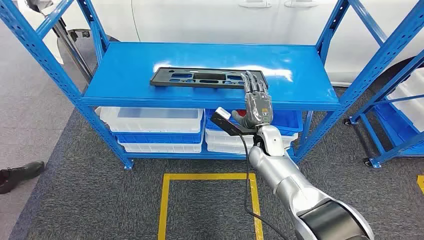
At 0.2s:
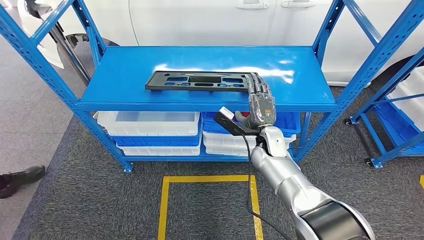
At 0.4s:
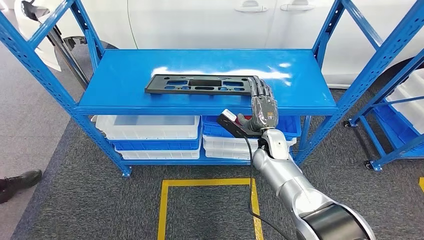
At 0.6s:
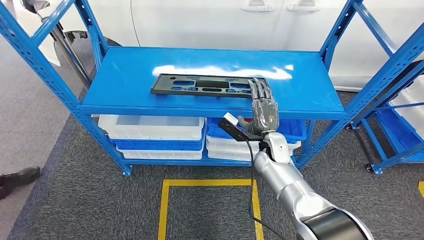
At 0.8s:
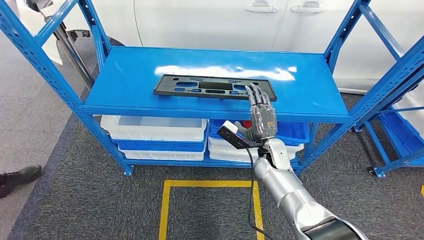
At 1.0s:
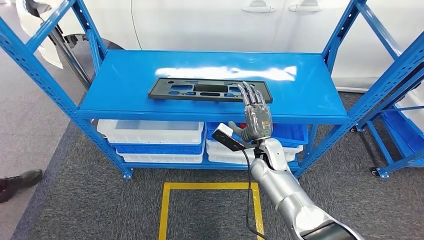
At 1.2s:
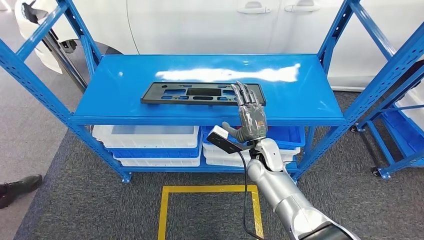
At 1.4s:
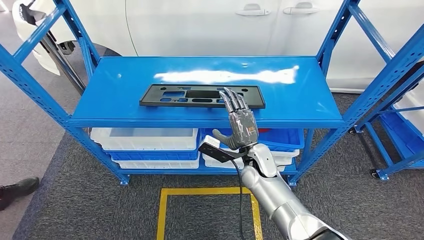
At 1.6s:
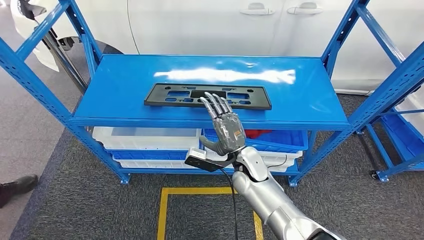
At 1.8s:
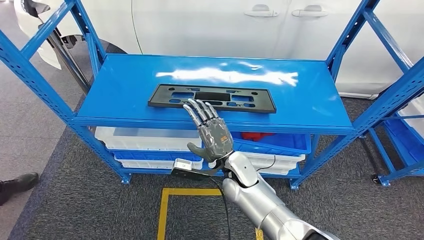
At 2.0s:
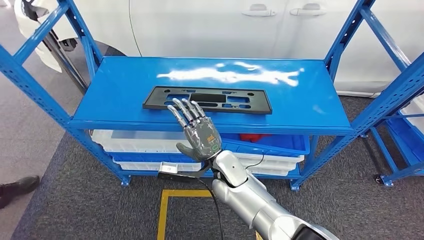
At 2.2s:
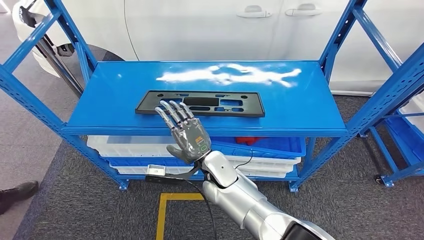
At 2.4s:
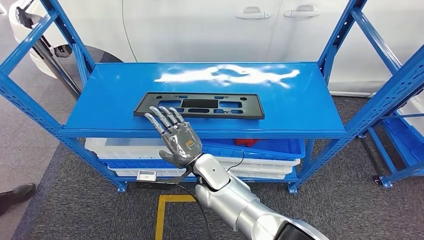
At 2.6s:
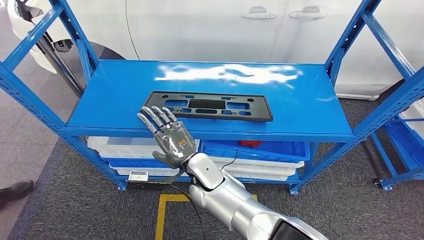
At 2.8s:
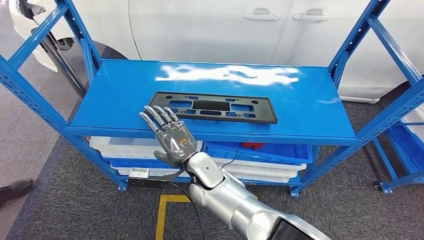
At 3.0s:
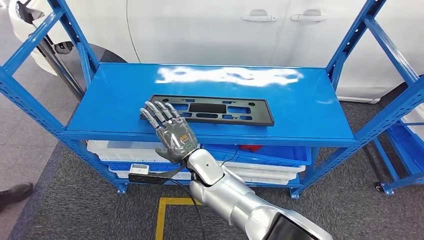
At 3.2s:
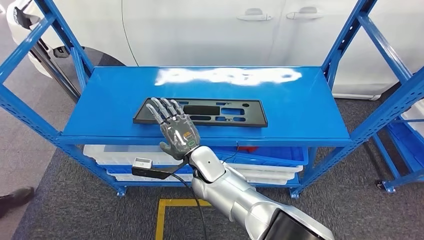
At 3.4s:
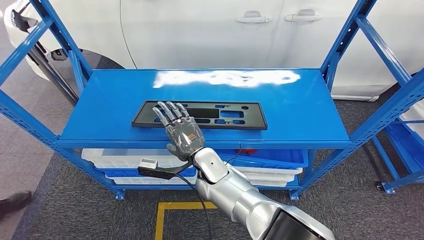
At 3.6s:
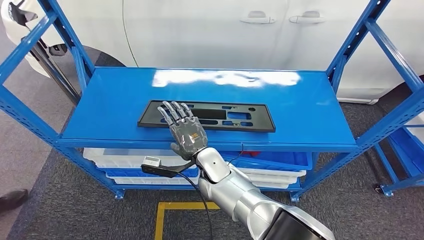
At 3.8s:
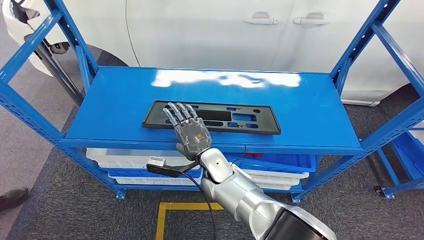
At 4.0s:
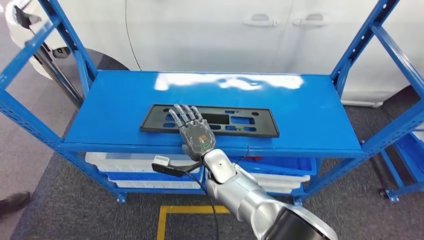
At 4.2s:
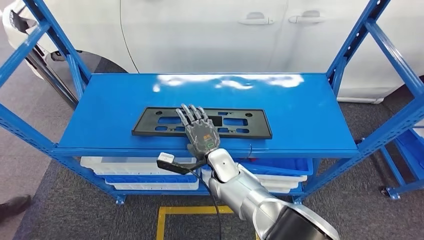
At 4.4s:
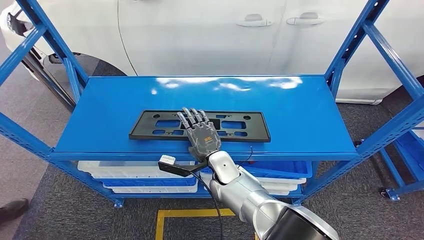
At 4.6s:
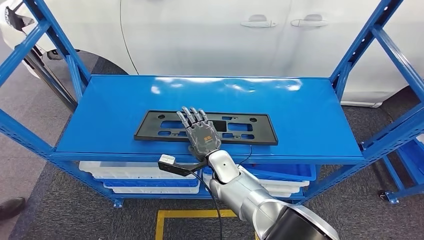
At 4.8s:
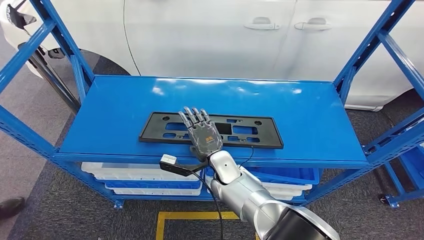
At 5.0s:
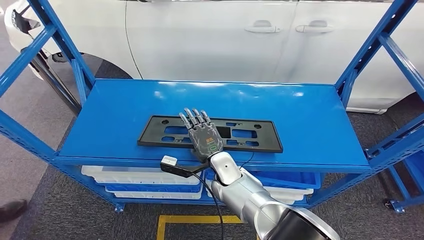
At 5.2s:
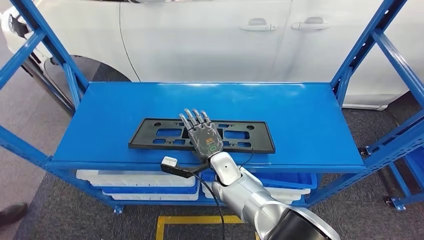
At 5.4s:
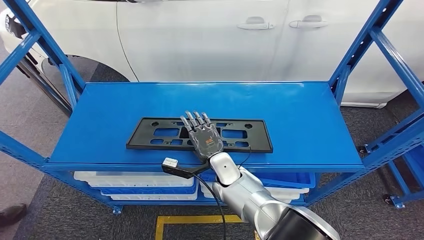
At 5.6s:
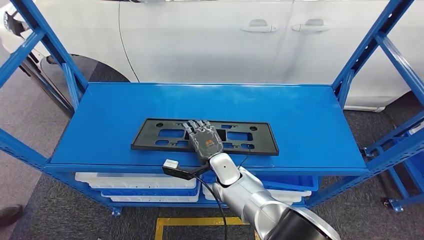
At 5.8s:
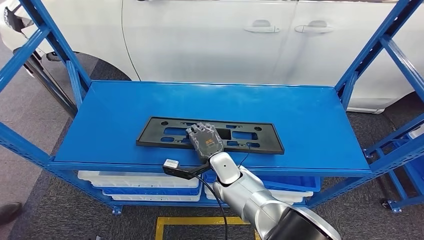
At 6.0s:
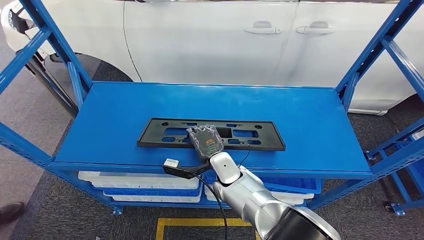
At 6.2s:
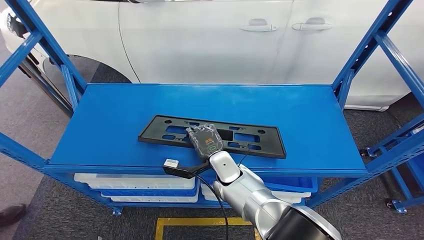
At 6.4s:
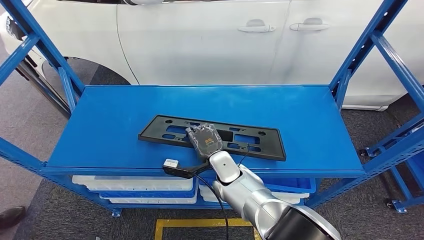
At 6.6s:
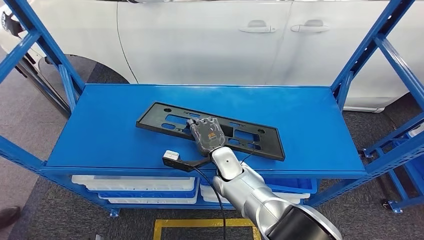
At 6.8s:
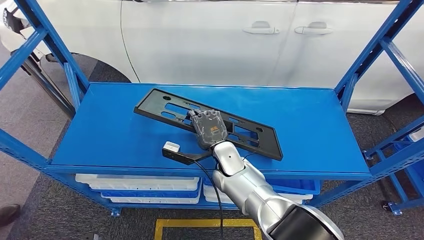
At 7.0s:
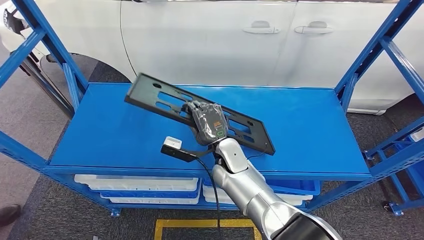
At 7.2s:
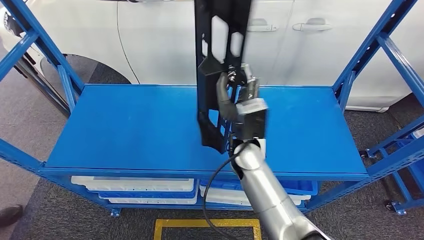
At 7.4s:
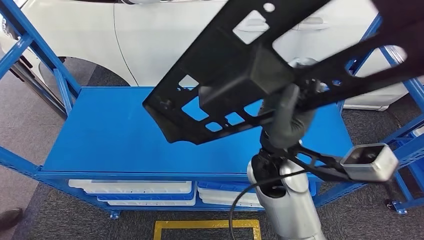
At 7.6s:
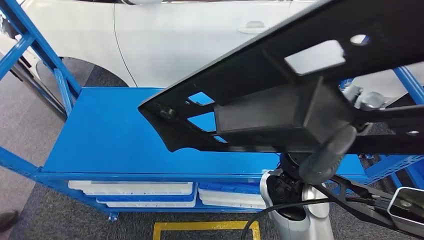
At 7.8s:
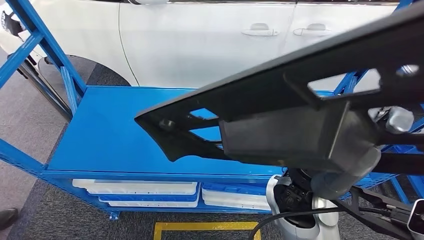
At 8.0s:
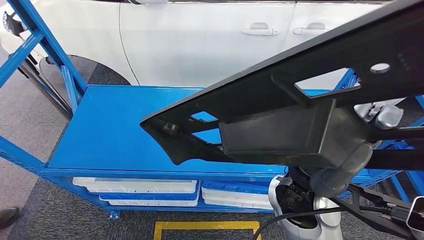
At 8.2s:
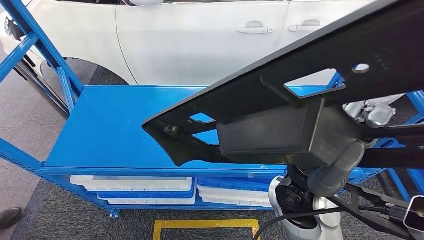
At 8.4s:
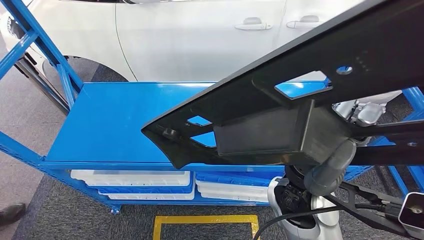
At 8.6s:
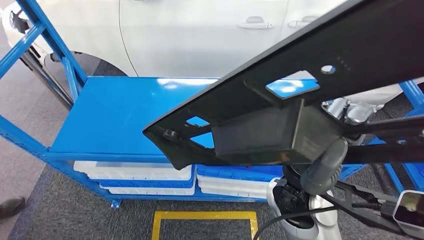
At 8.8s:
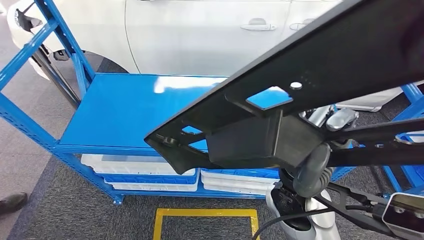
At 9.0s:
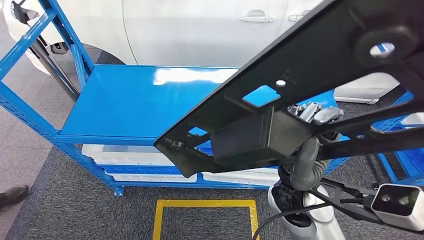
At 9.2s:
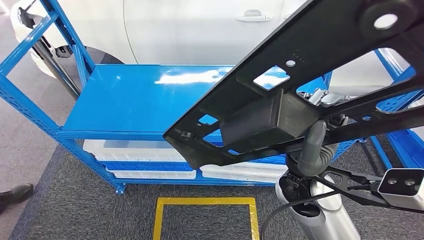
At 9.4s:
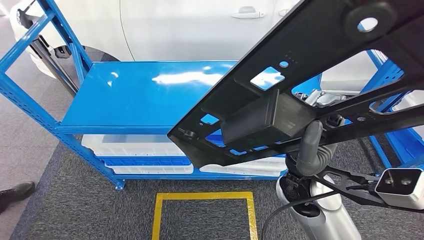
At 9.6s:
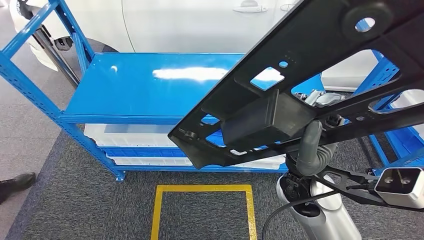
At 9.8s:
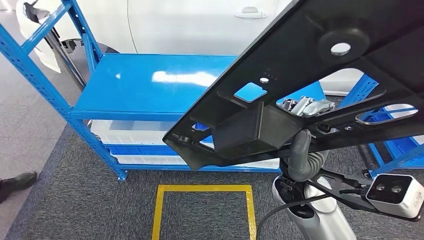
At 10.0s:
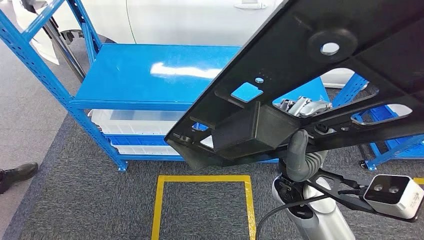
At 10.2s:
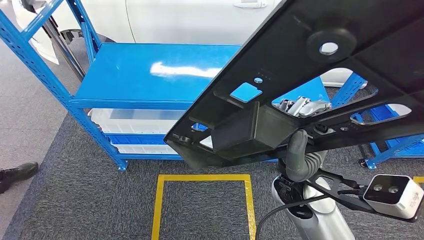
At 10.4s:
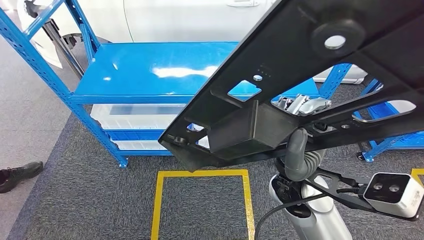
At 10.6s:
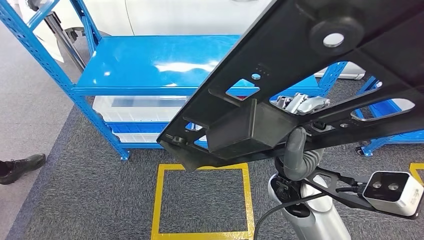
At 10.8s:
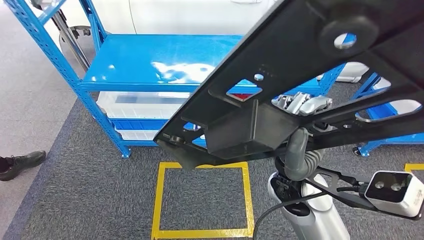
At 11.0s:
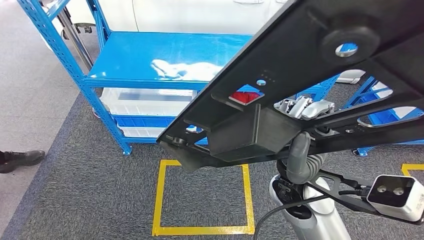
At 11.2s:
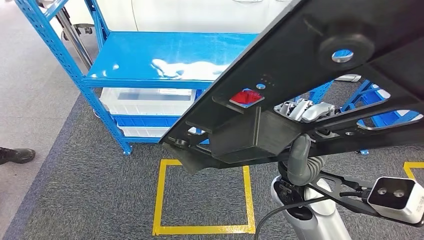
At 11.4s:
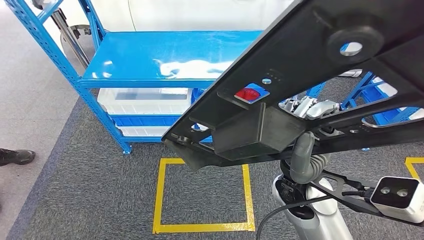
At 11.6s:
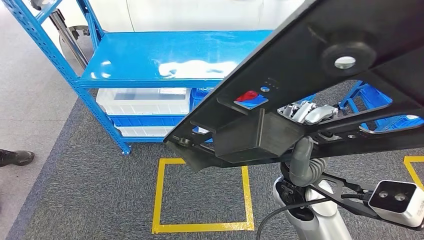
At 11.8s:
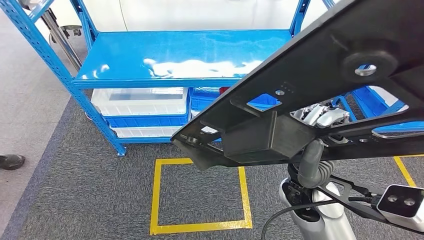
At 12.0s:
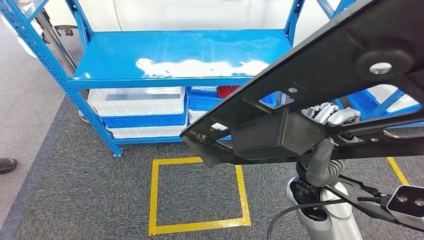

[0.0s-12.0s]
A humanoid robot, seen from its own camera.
Step, 0.0s to 8.4s: Pick up the large material from the shelf.

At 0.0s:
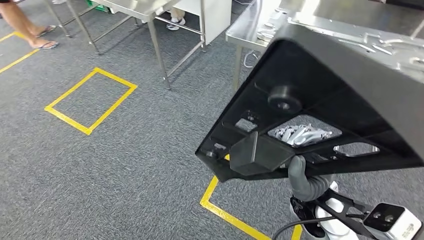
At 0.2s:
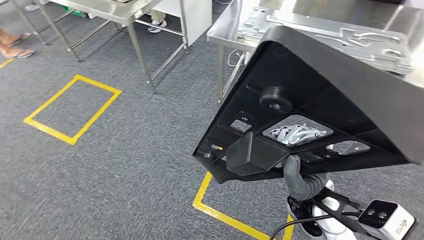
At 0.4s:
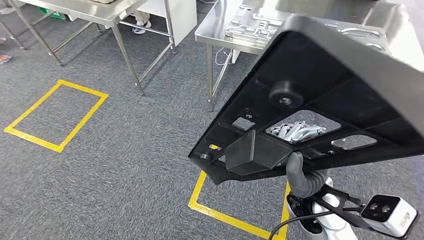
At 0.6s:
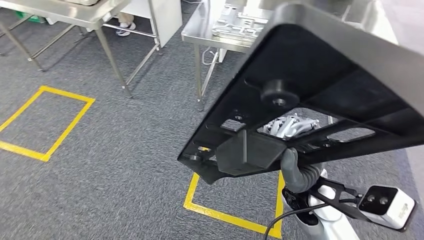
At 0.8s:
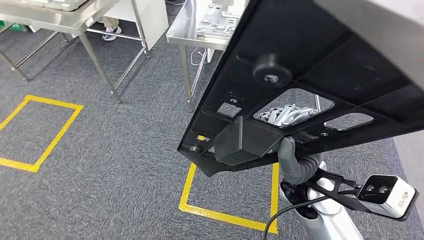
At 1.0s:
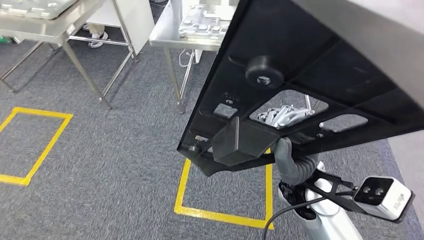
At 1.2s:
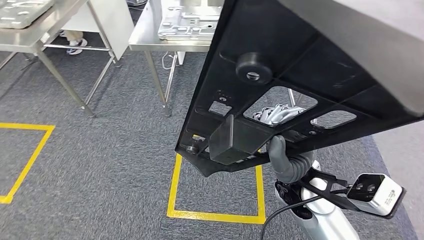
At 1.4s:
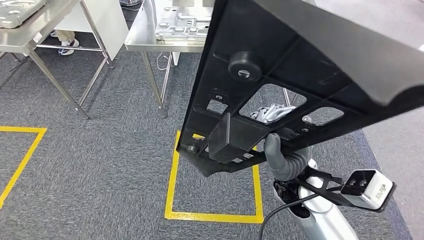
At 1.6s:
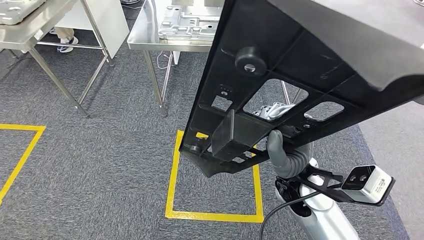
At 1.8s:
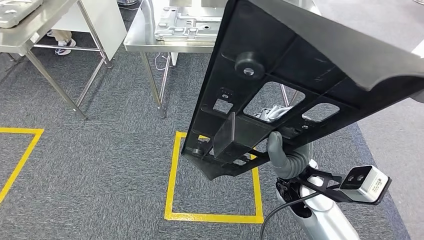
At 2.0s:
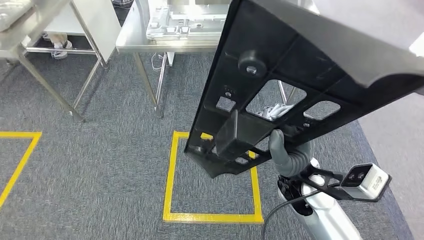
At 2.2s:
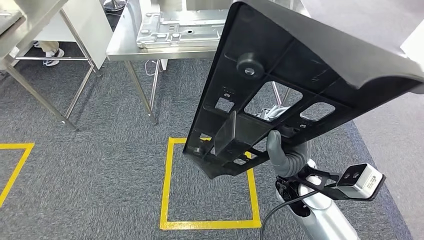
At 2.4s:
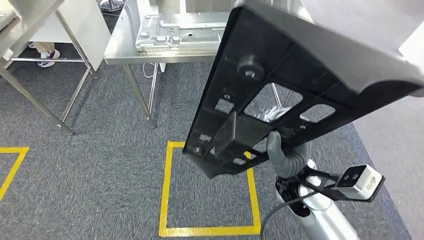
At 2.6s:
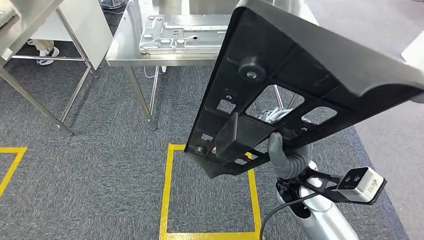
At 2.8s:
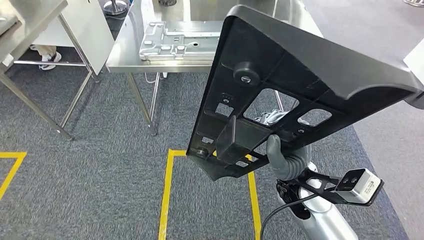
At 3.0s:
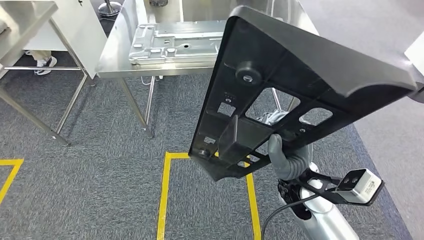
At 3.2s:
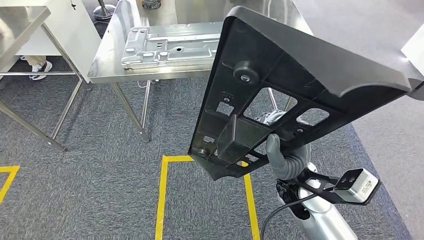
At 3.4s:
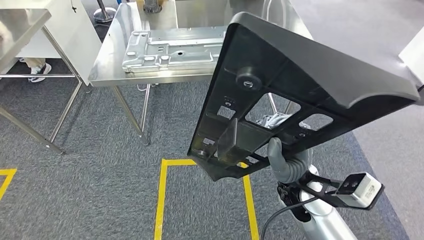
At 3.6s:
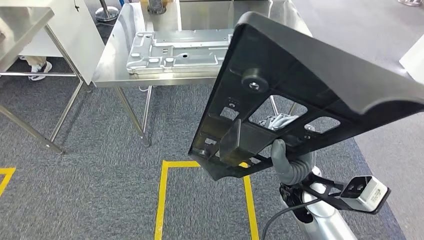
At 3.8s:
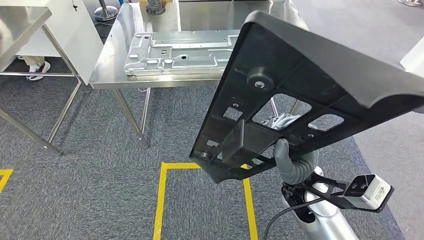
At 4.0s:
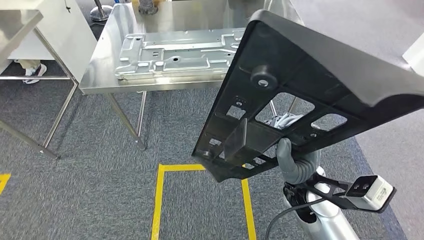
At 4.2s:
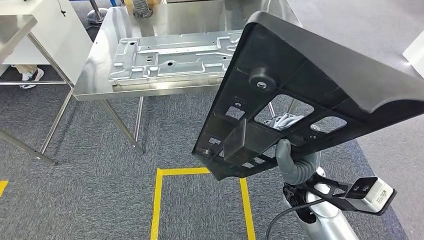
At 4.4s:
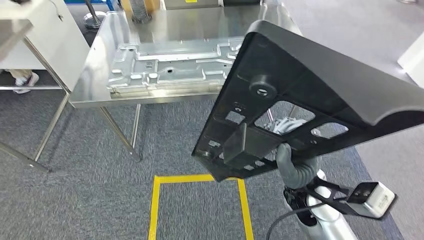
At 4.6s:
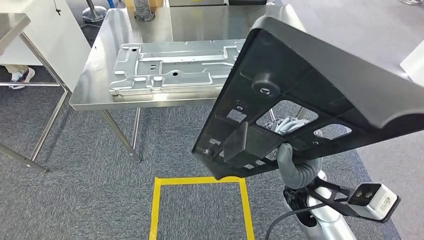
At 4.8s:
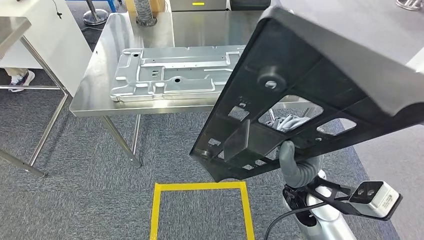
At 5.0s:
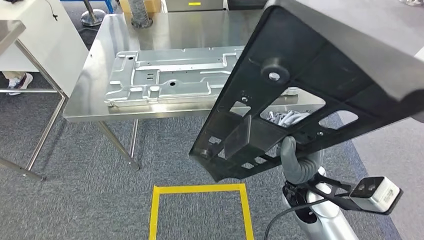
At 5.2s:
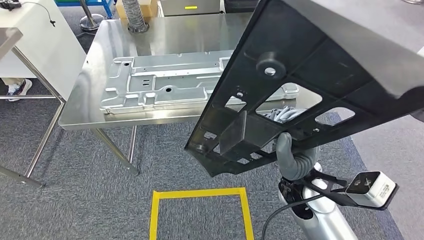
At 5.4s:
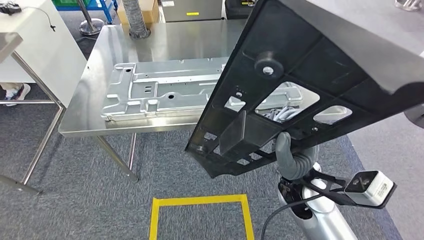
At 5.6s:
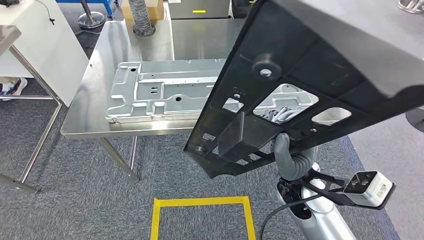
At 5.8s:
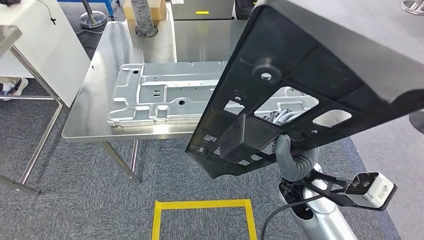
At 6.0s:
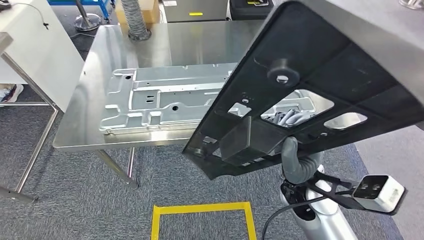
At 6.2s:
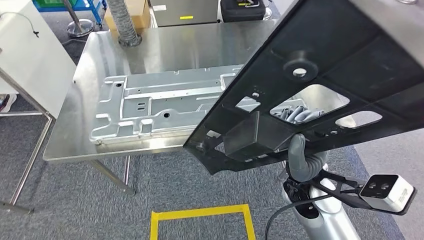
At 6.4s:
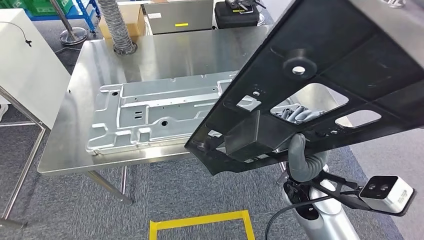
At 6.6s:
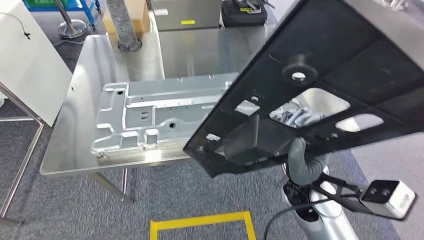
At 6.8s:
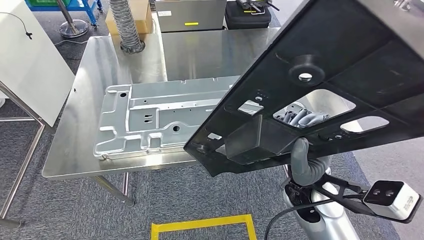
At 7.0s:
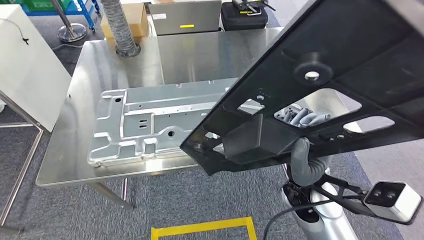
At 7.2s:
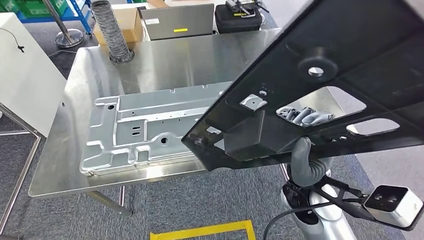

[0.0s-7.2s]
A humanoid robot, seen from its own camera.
Step, 0.0s to 6.2s: Move the large material to the workbench.
